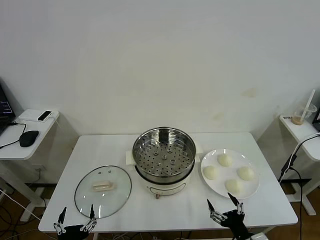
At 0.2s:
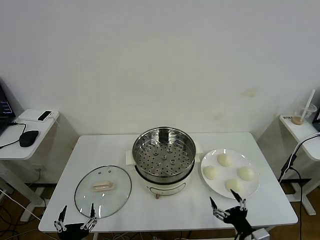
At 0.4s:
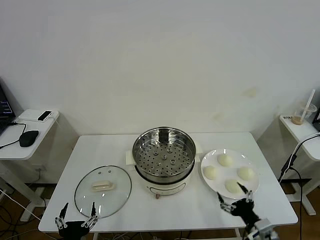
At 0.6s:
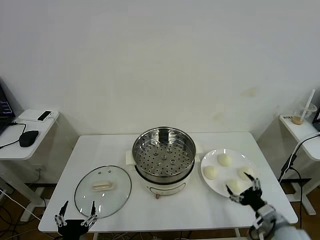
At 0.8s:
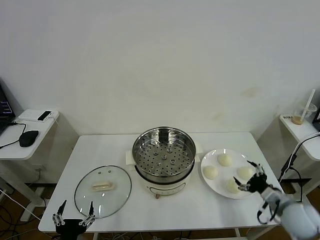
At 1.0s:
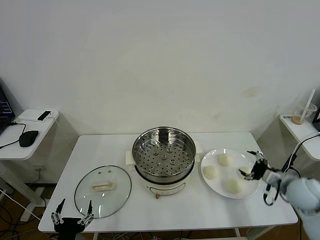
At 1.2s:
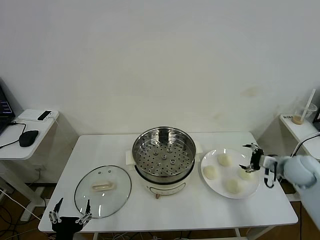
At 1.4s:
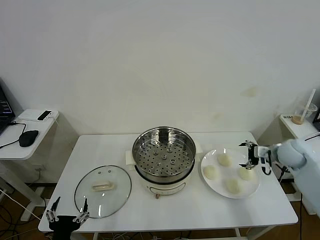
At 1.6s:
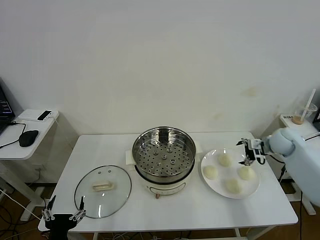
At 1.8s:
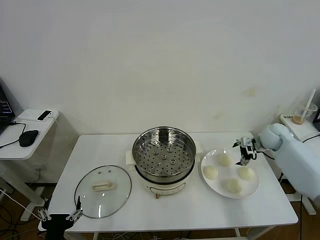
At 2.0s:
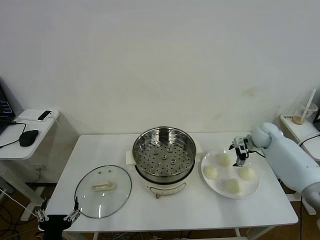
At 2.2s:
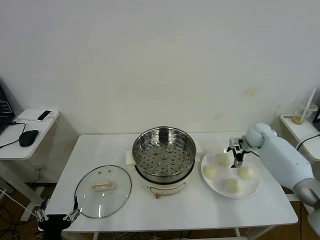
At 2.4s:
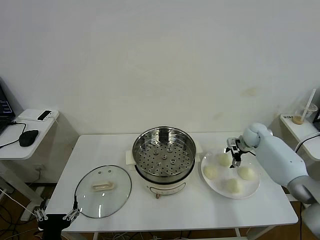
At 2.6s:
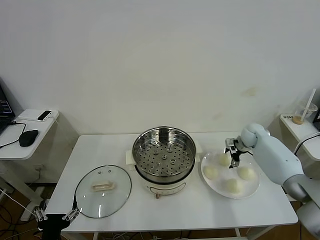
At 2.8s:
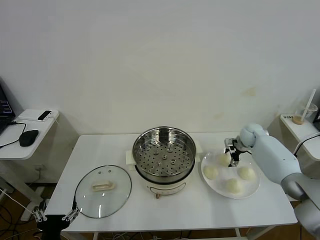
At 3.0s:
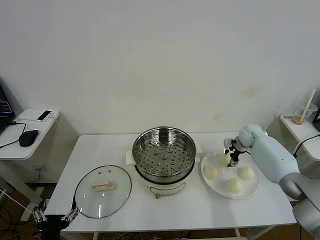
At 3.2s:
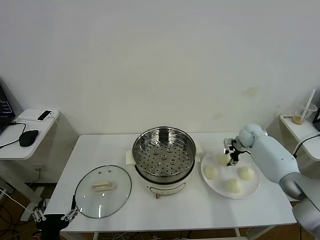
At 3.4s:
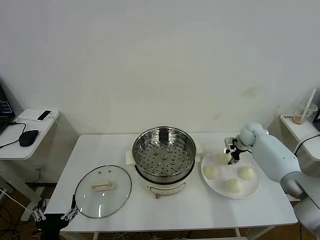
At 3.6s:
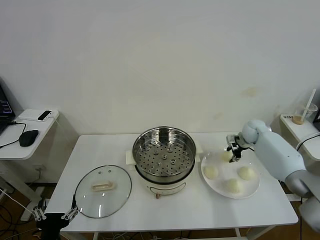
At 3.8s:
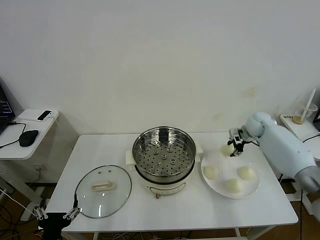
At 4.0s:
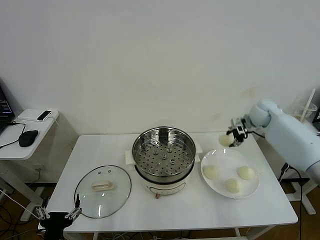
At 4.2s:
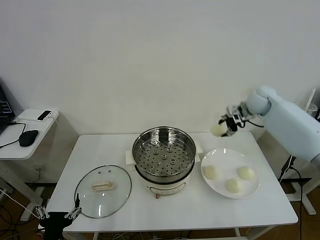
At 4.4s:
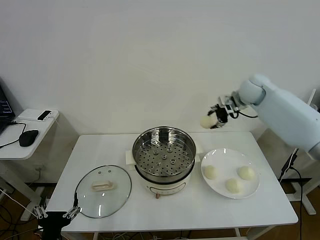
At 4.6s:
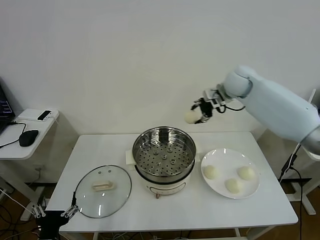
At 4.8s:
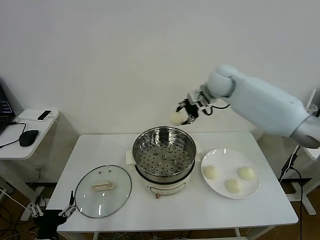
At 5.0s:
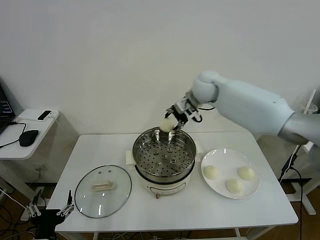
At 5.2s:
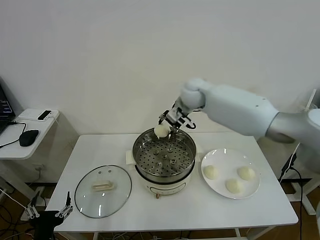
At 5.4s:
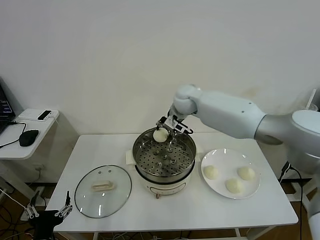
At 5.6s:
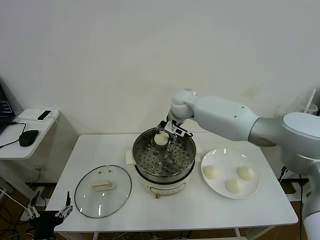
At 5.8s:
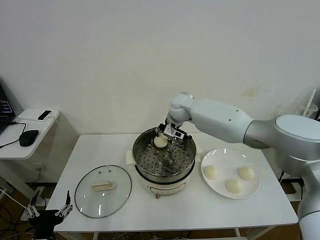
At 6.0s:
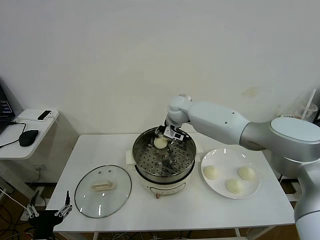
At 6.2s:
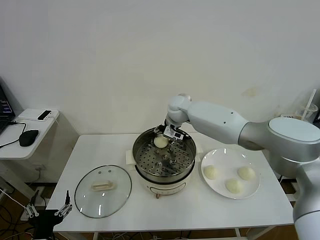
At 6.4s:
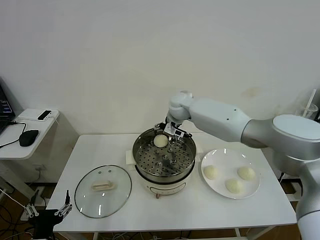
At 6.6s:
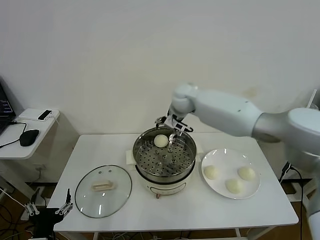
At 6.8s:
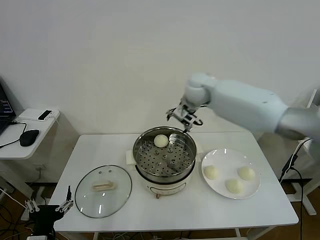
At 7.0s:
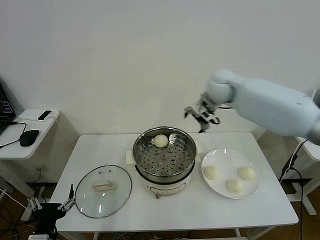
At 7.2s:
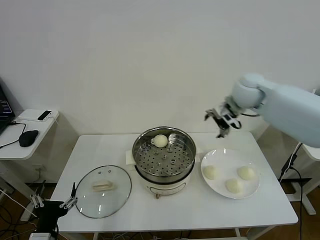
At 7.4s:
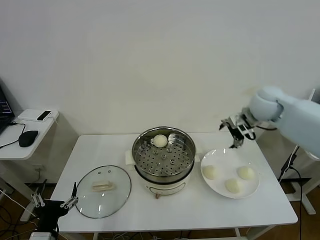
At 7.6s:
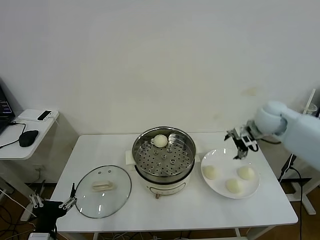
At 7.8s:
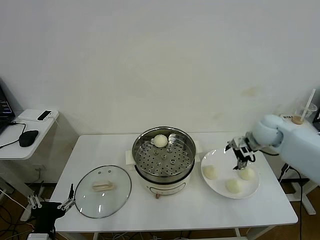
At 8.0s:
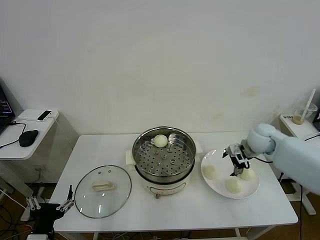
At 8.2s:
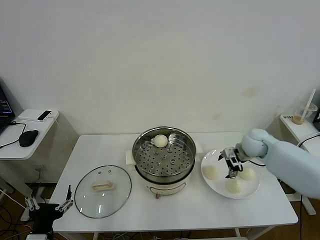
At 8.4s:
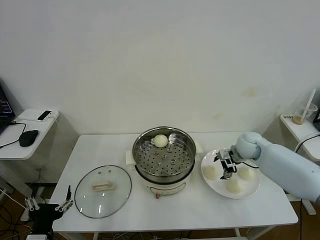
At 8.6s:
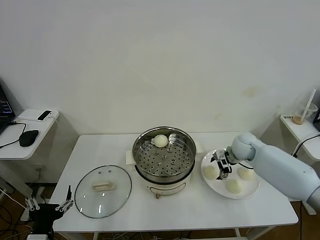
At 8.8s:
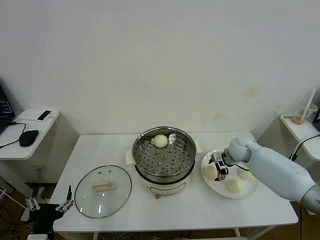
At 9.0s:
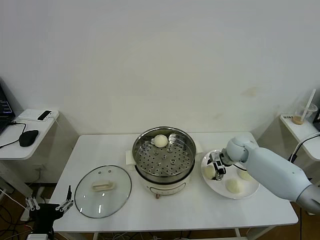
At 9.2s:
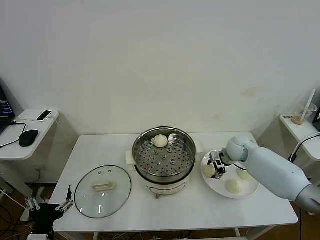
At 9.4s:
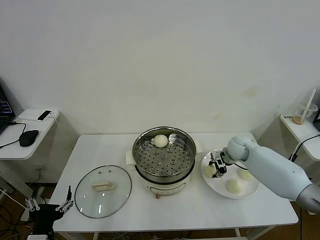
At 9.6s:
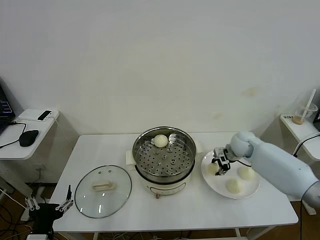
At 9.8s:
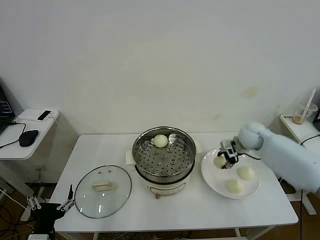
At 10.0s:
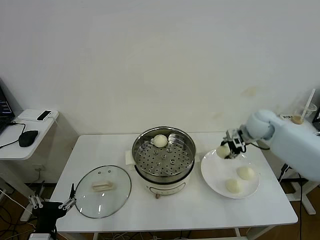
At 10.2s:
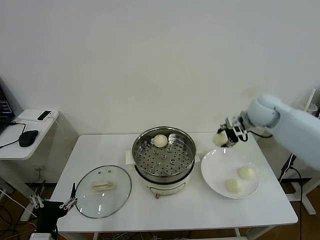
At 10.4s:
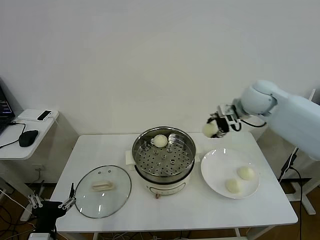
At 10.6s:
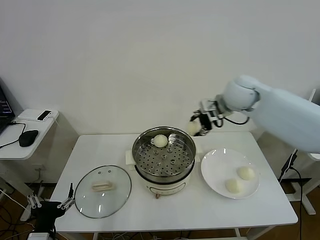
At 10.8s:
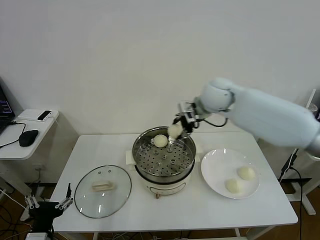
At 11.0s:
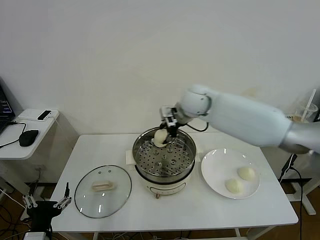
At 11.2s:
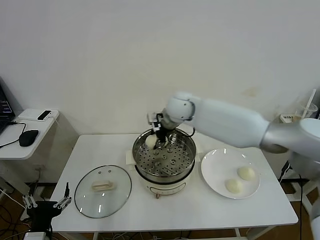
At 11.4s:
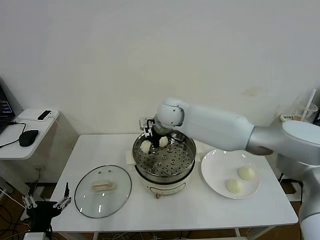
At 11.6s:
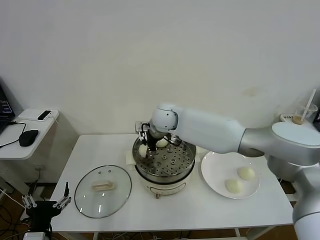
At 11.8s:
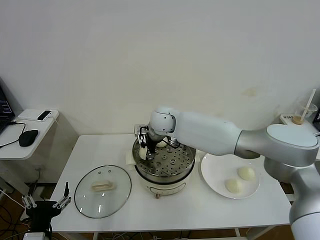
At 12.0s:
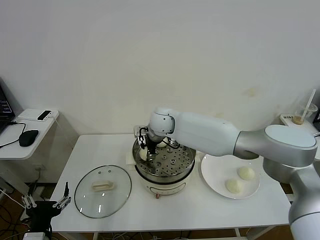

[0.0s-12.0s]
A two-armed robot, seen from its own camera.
Task of the whole recording: take steamed baozi put them in steamer then cover it.
Step, 0.0s to 3.2s: Grasp the baozi in the plate with right gripper.
Step, 3.4s to 6.4s: Place the baozi on the steamer with right gripper.
Step, 6.6s to 9.2s: Grasp the baozi in the plate with right gripper.
1.6s to 3.0s: The right gripper moves forward, downward and to the left, some 10 cm, and closes its fingers.
3.0s to 4.4s: The right gripper heads upward and to the left, covering about 25 cm.
4.4s to 6.0s: The right gripper shifts approximately 25 cm to the left and downward.
6.0s to 7.6s: The right gripper moves to the right, roughly 30 cm, and opens up.
7.6s to 9.0s: The right gripper travels downward by roughly 15 cm, and closes up.
9.0s to 10.4s: The right gripper moves upward, approximately 25 cm, and closes up.
10.4s to 12.0s: The right gripper is displaced to the left and downward by some 30 cm, and opens up.

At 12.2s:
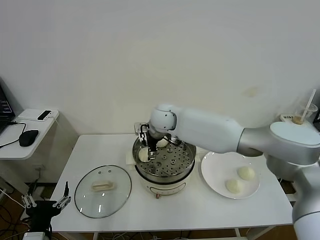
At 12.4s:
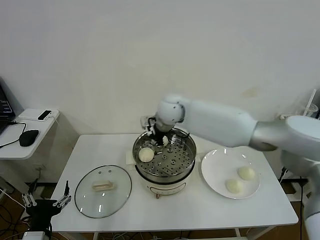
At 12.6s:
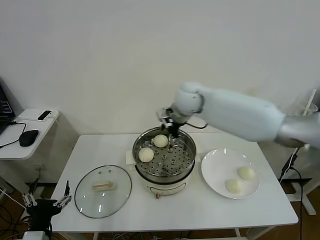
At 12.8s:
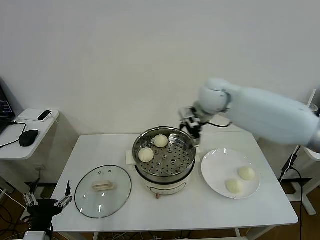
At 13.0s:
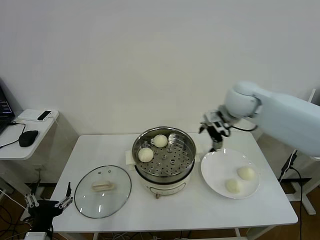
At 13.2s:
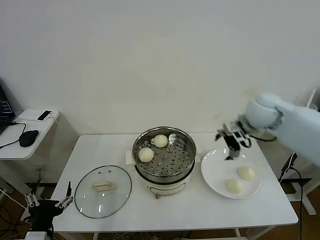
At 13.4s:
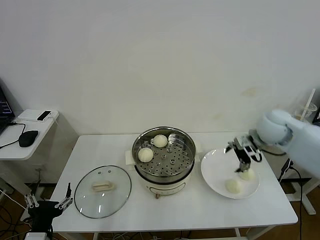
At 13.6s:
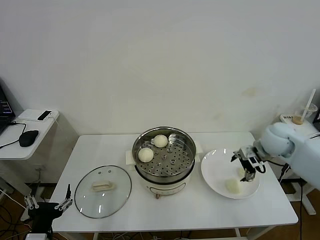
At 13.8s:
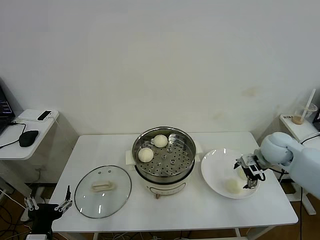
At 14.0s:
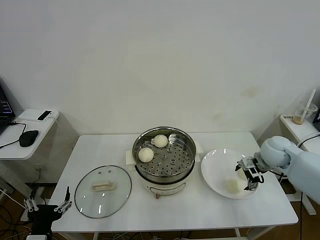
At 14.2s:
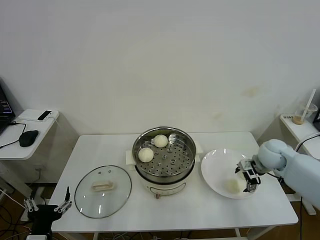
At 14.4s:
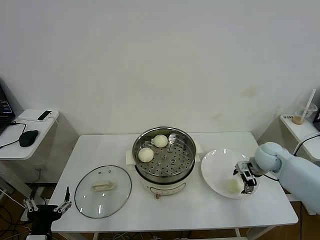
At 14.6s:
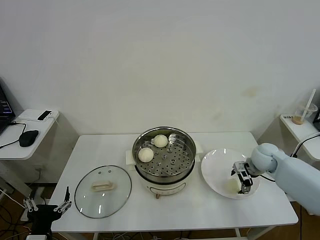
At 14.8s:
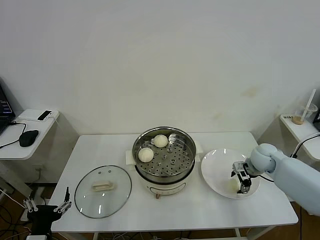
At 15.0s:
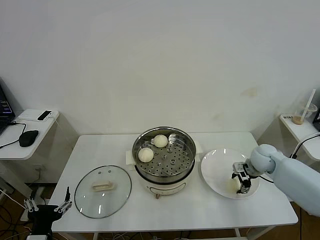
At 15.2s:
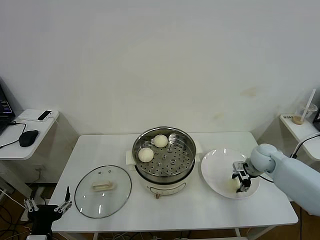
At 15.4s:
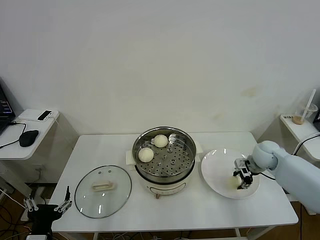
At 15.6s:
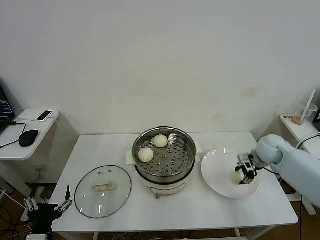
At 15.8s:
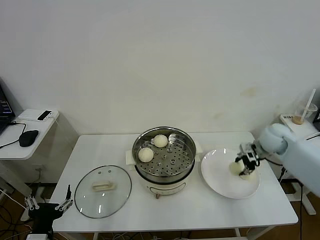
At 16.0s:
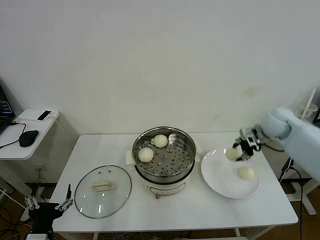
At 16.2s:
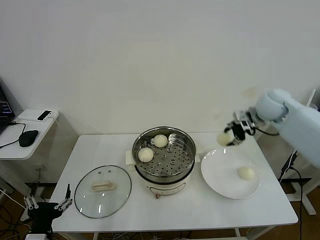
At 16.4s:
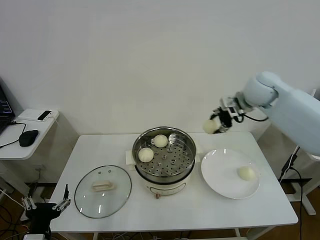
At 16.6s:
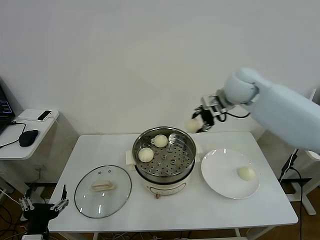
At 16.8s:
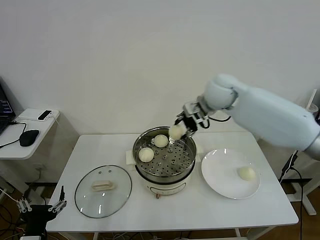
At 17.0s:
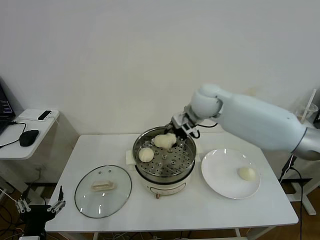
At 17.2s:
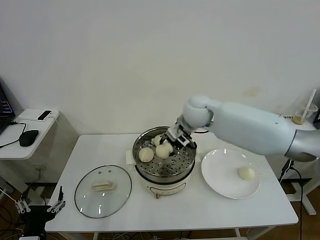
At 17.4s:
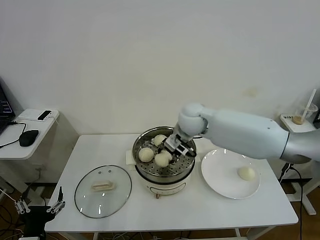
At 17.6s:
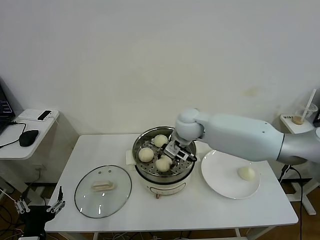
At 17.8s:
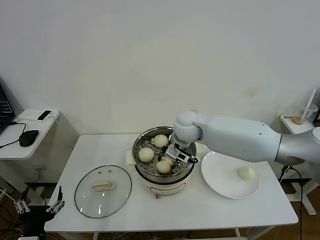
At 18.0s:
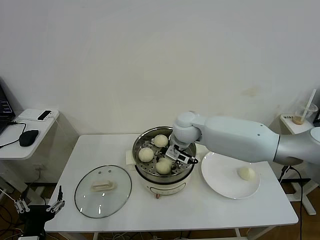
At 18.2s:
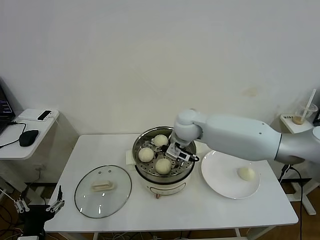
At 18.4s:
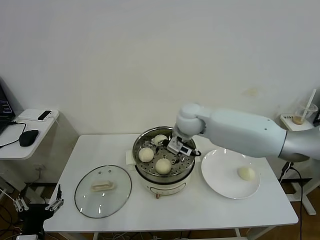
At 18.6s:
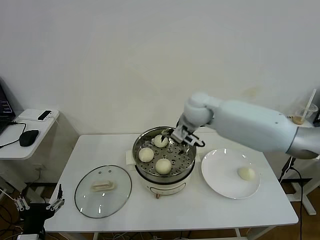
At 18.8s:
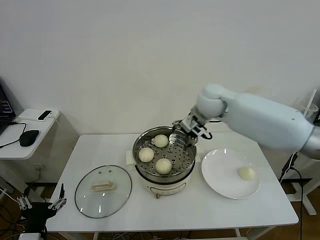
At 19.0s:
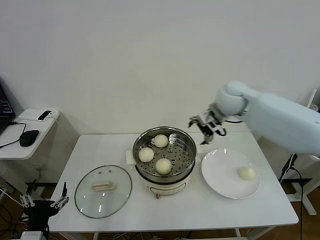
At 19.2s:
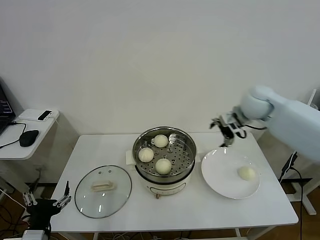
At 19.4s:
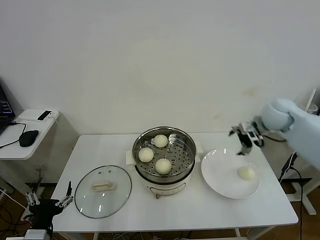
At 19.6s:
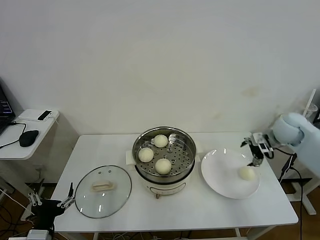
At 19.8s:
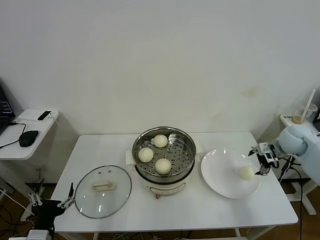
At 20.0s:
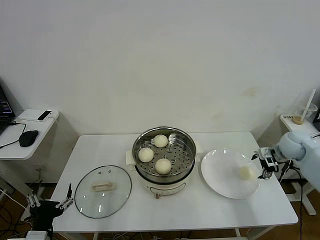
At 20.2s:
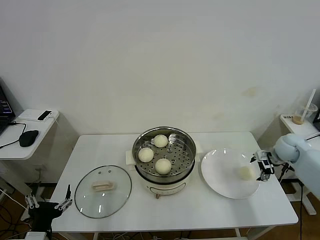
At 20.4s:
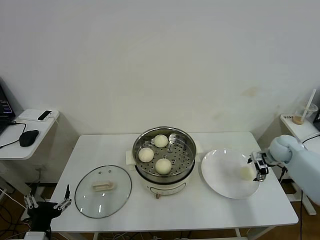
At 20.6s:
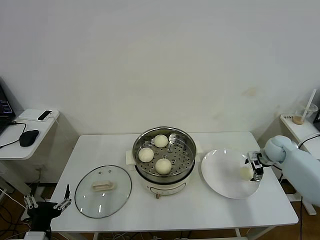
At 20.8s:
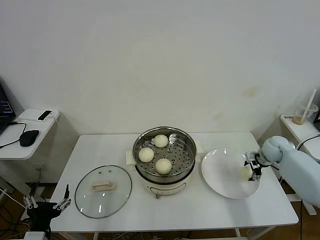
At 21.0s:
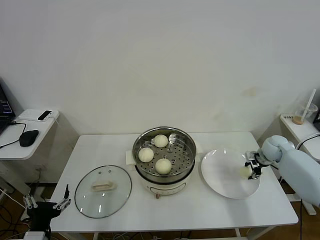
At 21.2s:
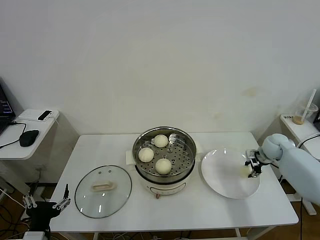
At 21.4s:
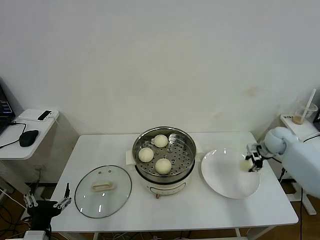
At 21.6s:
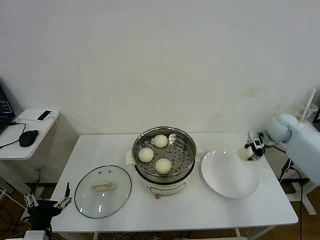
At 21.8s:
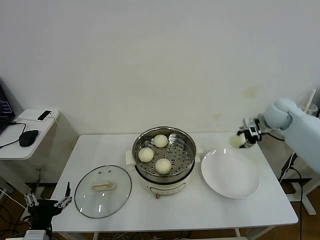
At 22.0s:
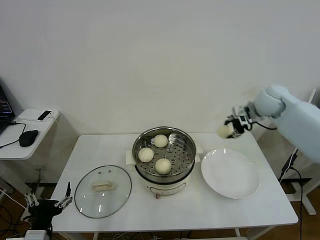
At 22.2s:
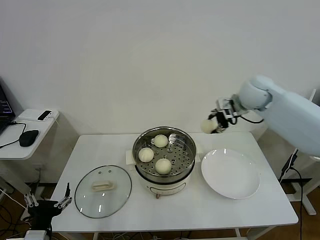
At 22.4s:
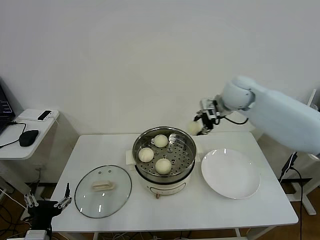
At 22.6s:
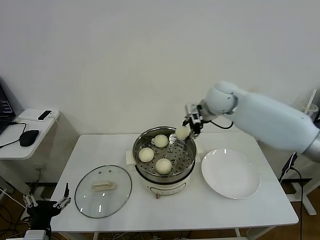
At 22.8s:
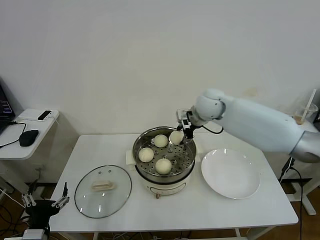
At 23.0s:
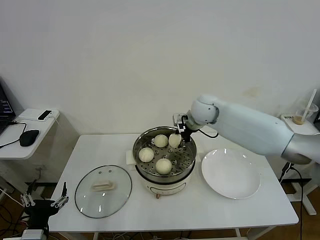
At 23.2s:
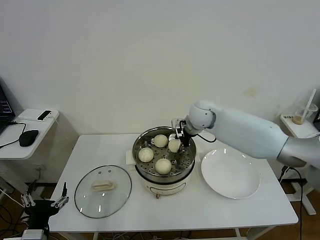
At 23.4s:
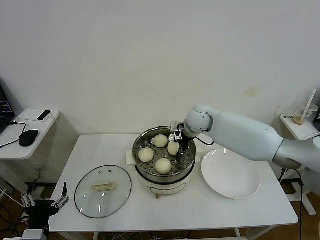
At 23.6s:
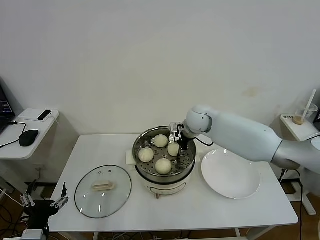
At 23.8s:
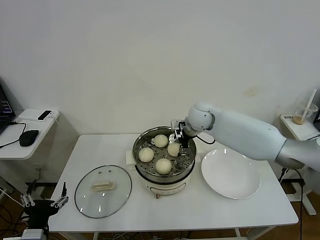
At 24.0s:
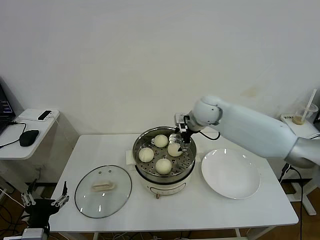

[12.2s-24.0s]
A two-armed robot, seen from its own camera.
Task of the whole recording: take steamed baozi put them in steamer then cover it.
Step, 12.4s to 15.2s: Grasp the baozi in the plate with right gripper.
Step, 15.4s to 18.2s: Place the baozi on the steamer with right gripper.
Step, 18.4s to 21.0s: Grasp the baozi in the plate with right gripper.
Step, 21.4s to 23.8s: Place the baozi on the steamer with right gripper.
12.2s to 13.6s: The right gripper goes approximately 35 cm to the right.
13.6s to 15.2s: The right gripper moves downward, some 10 cm, and closes up.
15.2s to 16.6s: The right gripper shifts roughly 30 cm upward and to the left.
16.6s to 18.2s: The right gripper is displaced to the left and downward by roughly 15 cm, and opens.
18.2s to 19.6s: The right gripper heads to the right, covering about 35 cm.
19.6s to 21.0s: The right gripper goes some 15 cm downward, and closes.
21.0s to 22.6s: The right gripper heads to the left and upward, covering approximately 35 cm.
22.6s to 24.0s: The right gripper opens.
